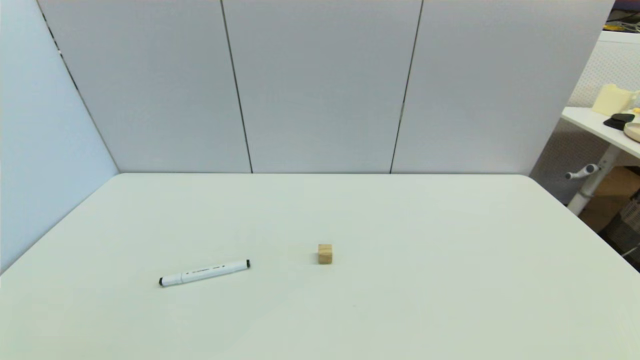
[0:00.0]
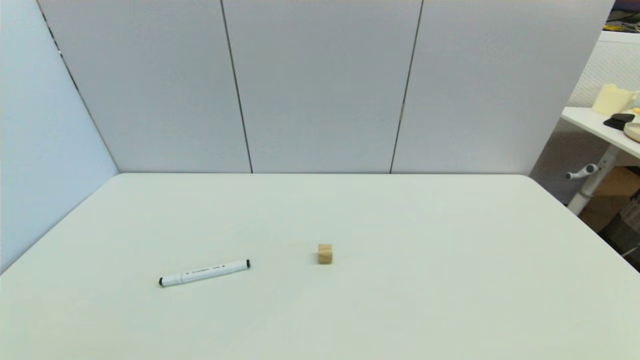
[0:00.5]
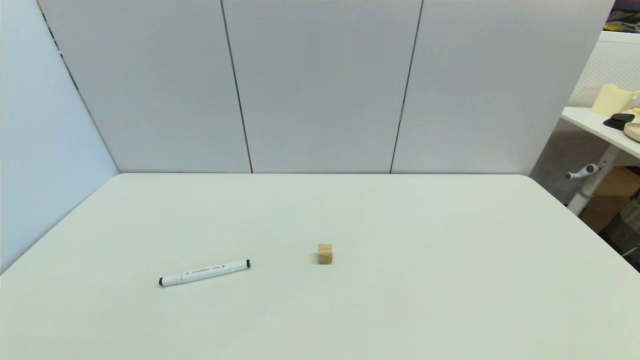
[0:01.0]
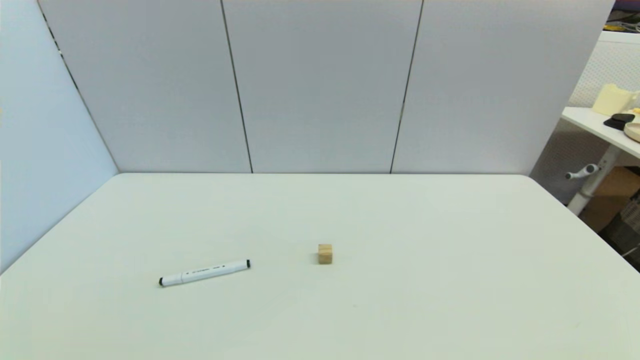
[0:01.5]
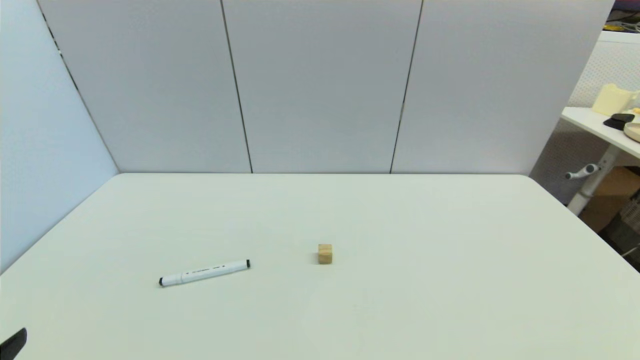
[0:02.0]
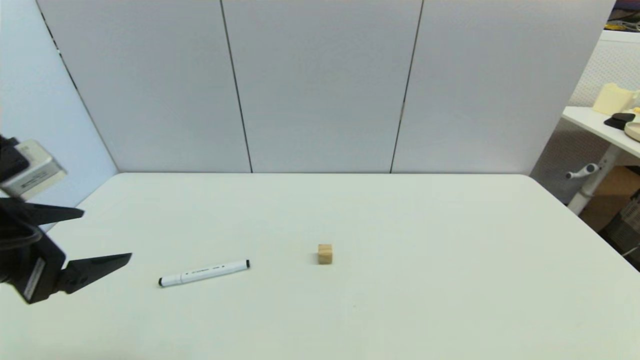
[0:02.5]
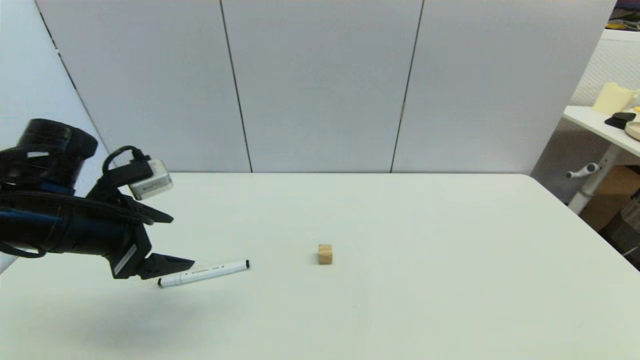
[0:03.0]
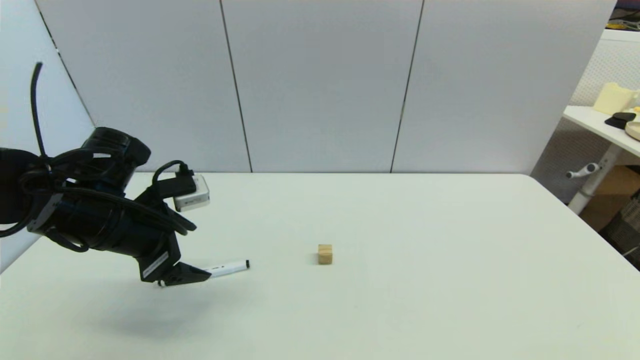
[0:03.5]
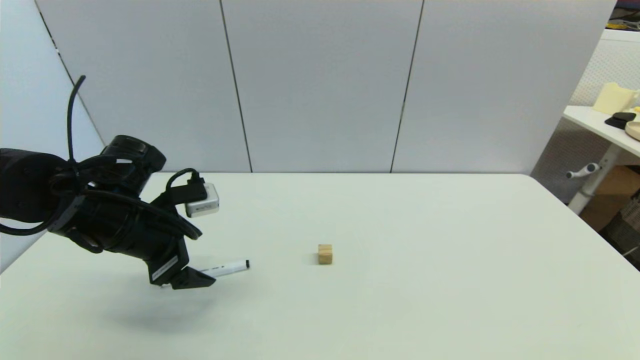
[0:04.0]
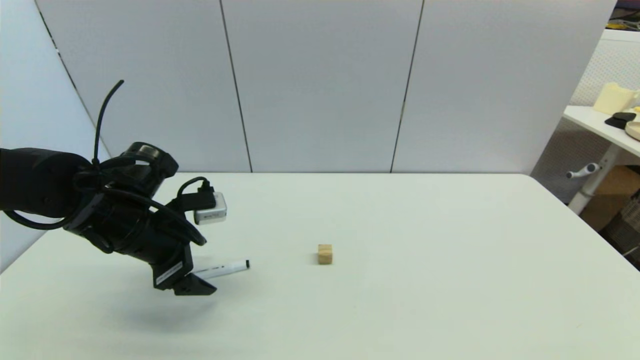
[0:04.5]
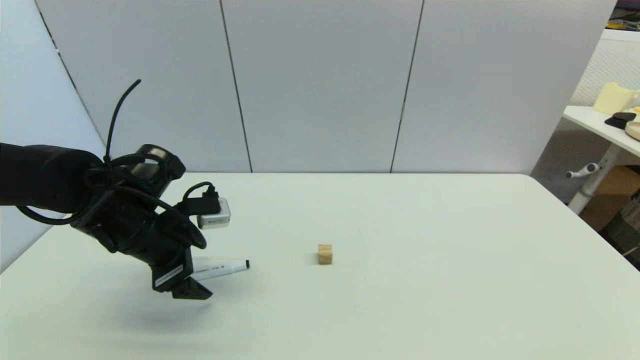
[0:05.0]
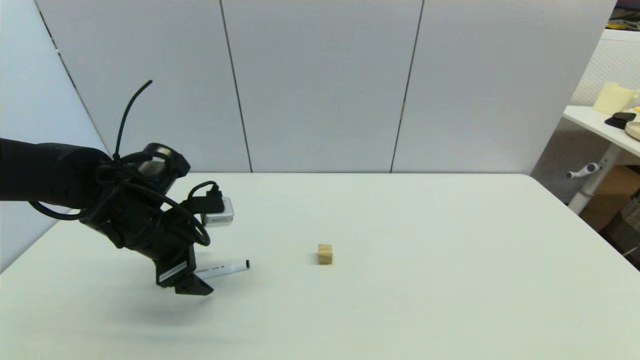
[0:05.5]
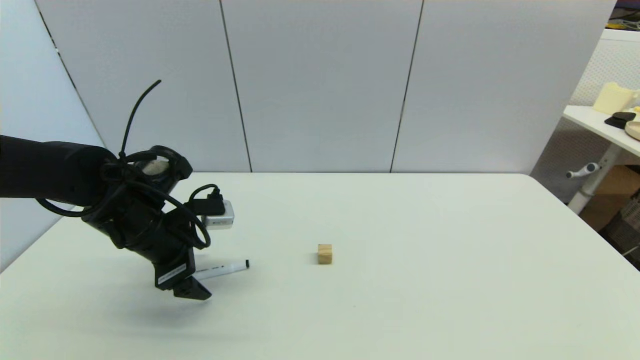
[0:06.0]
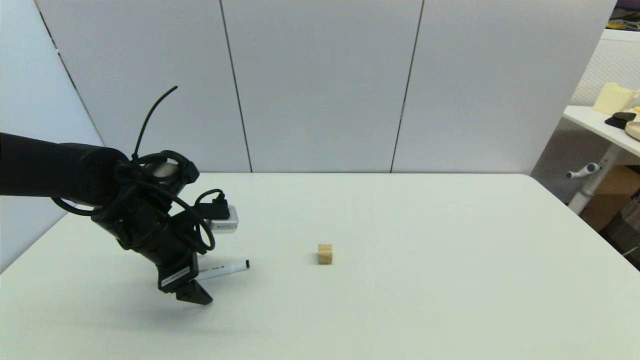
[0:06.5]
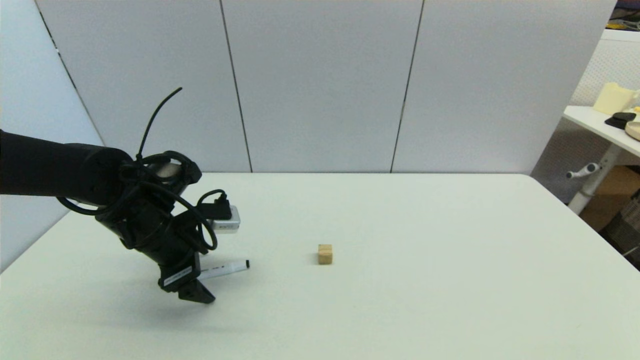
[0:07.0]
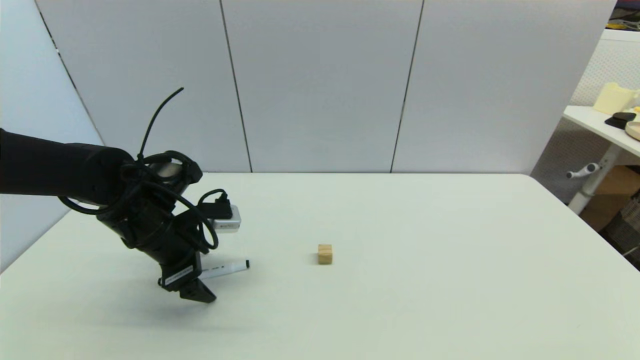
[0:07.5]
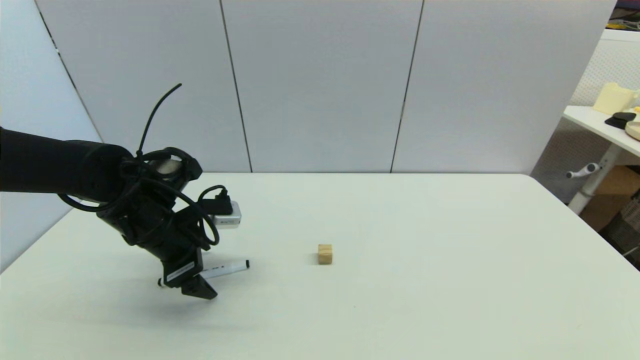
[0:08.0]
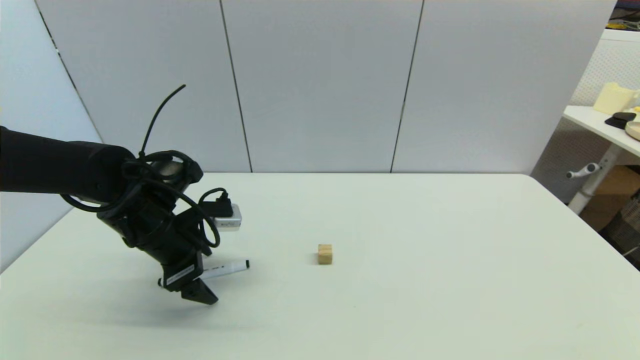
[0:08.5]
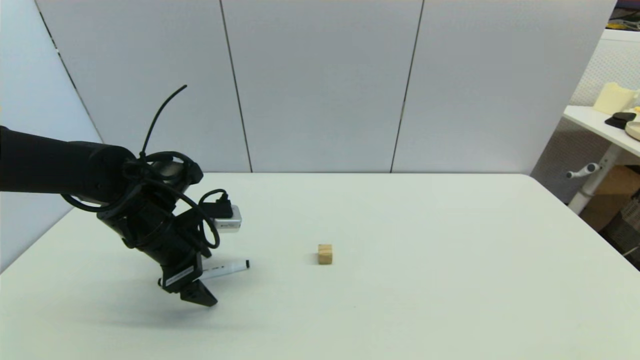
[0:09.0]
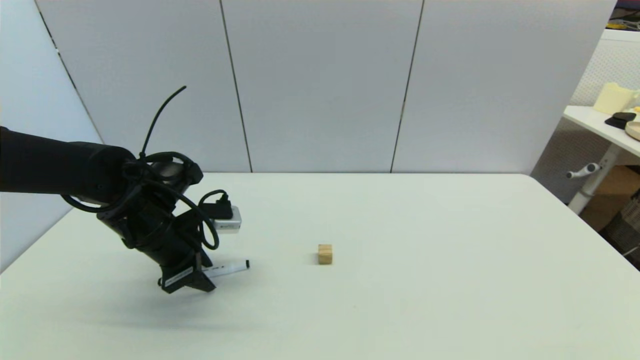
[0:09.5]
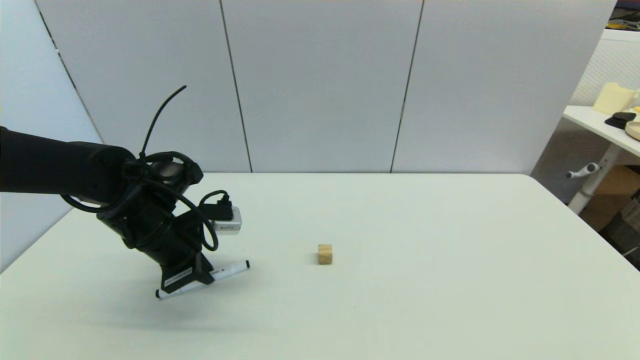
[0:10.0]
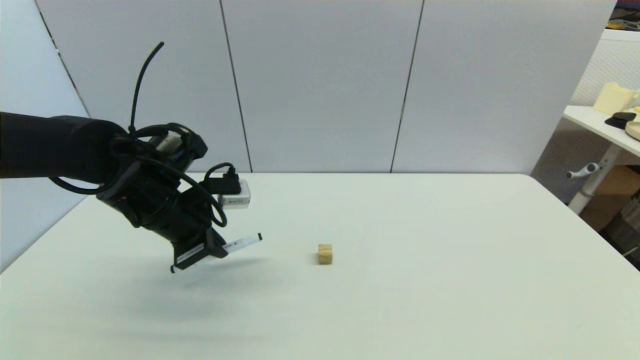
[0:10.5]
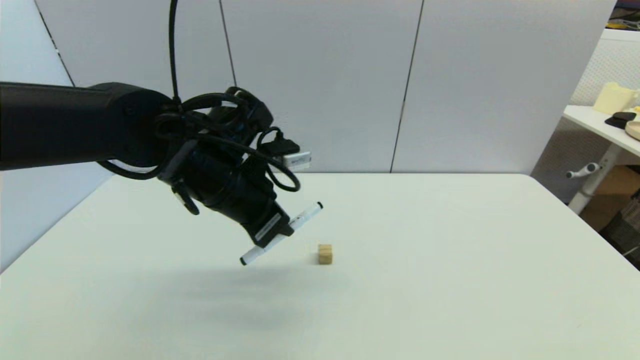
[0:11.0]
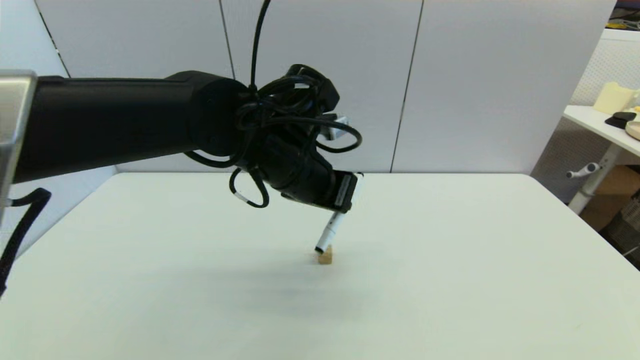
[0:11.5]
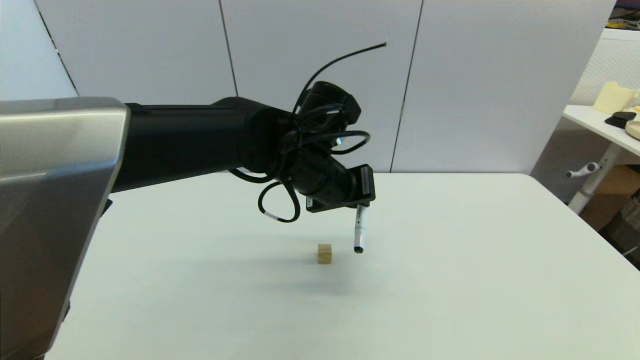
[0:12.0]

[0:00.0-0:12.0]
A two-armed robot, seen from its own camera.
Task of the whole recording: put the black marker in the designated position.
Step, 0:02.0 to 0:09.5: Grasp the Marker pen with left gripper.
0:02.0 to 0:04.0: The left gripper moves forward, some 25 cm.
0:04.0 to 0:06.0: There are only small adjustments of the grippers.
0:06.0 to 0:08.0: Both grippers stay put.
0:08.0 to 0:10.0: The left gripper closes its fingers.
0:10.0 to 0:12.0: The left gripper goes approximately 20 cm to the right.

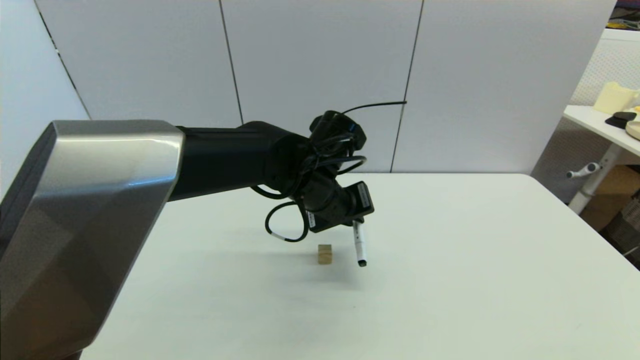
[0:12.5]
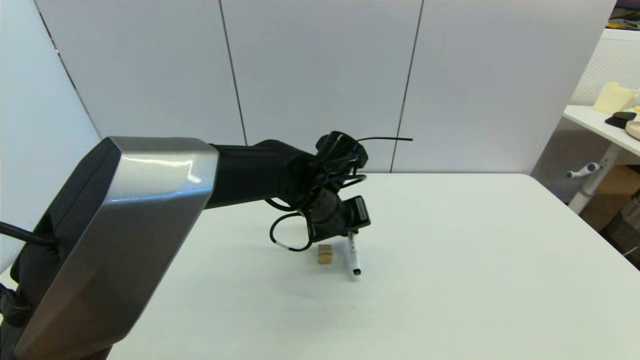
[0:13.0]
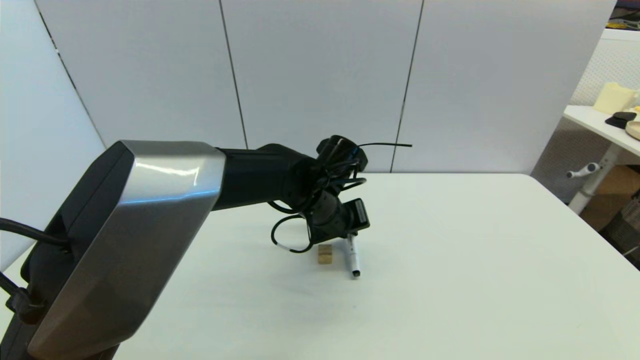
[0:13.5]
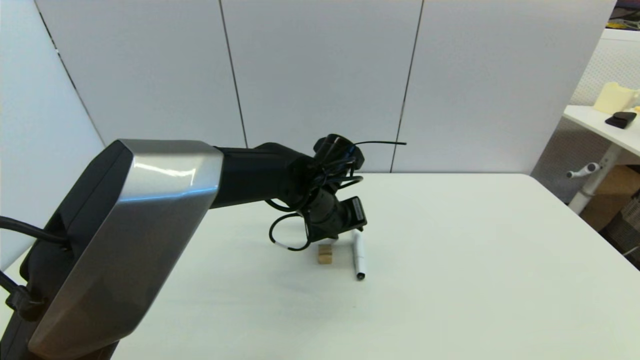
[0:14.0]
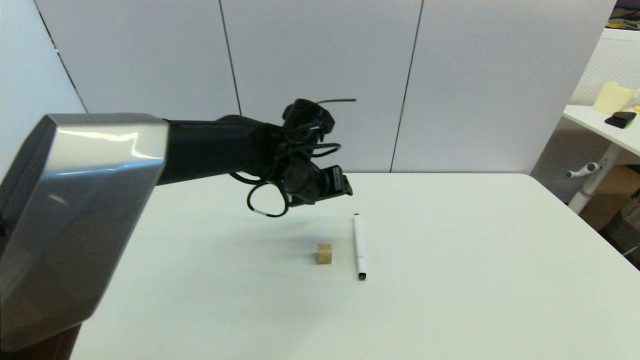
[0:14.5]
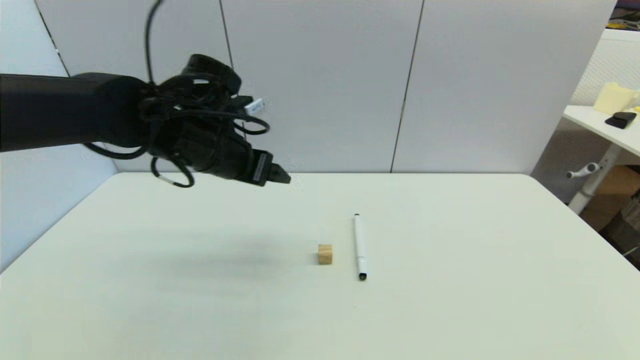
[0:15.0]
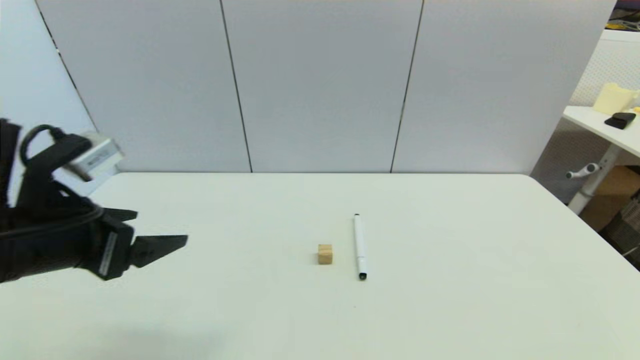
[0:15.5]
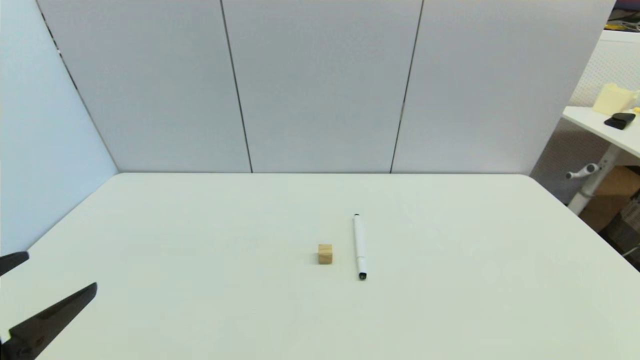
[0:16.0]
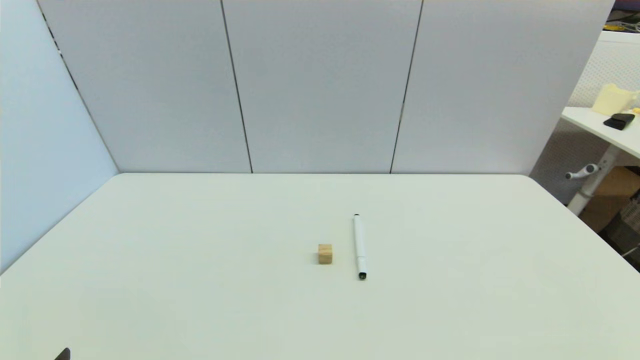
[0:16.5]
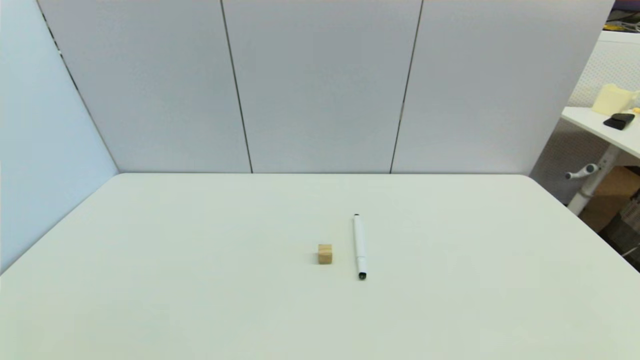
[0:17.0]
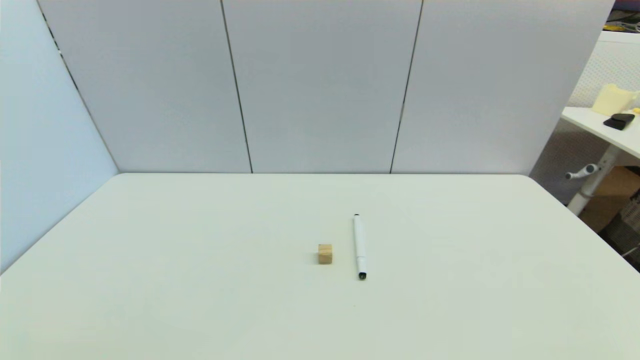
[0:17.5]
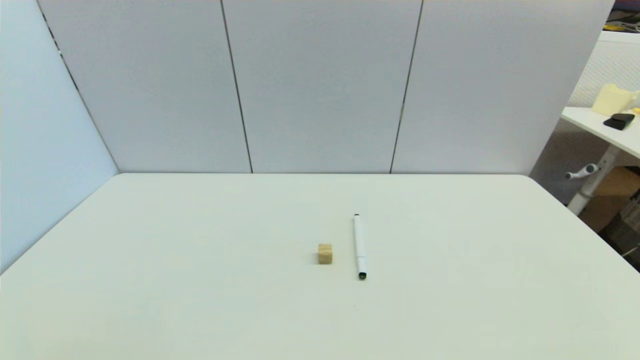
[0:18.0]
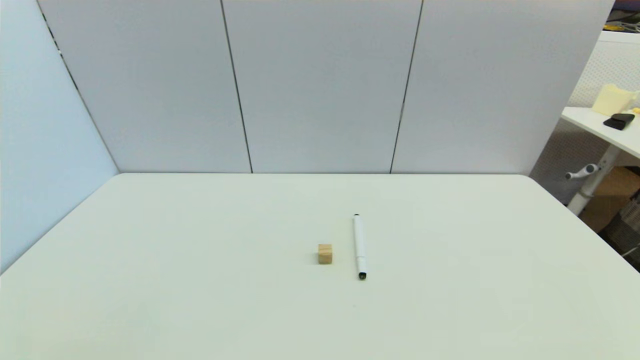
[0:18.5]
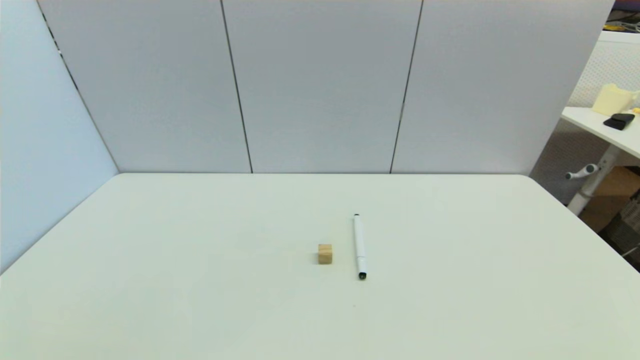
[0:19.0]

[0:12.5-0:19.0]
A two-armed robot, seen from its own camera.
Task of the whole recording: put the black marker in the designated position.
0:12.5 to 0:14.5: The left gripper shifts by roughly 5 cm, and opens.
0:14.5 to 0:17.0: The left gripper shifts about 50 cm backward and to the left.
